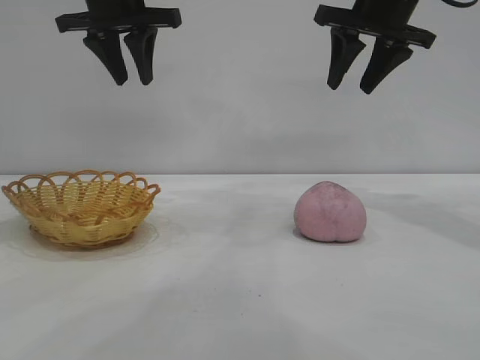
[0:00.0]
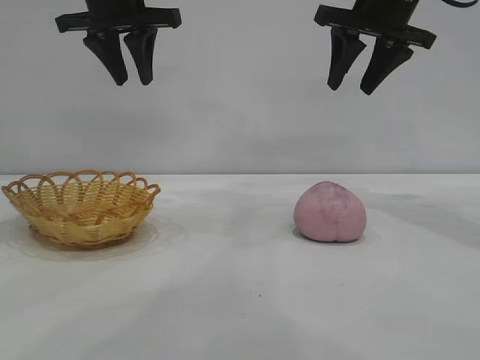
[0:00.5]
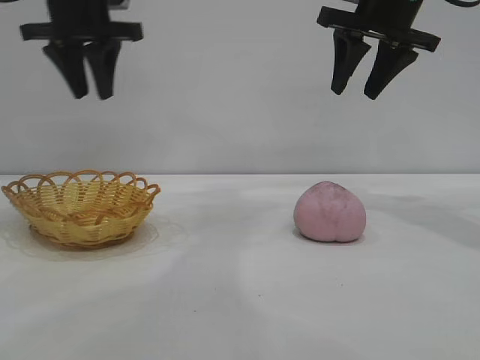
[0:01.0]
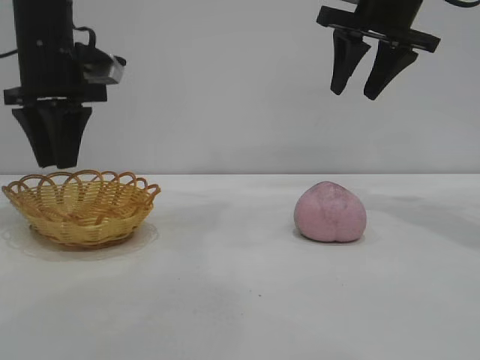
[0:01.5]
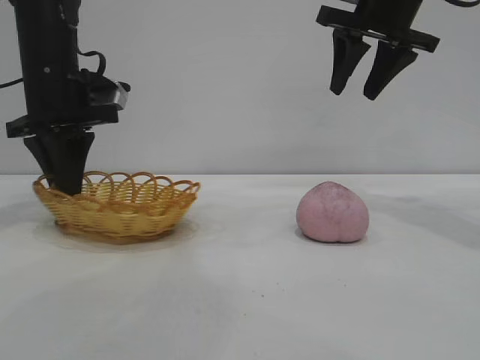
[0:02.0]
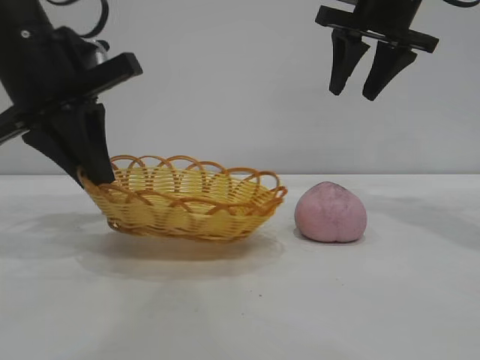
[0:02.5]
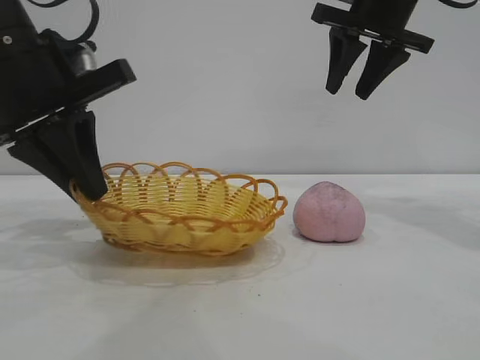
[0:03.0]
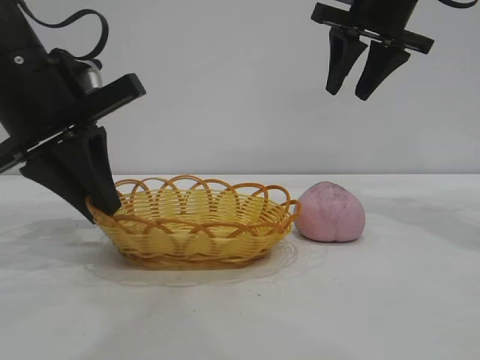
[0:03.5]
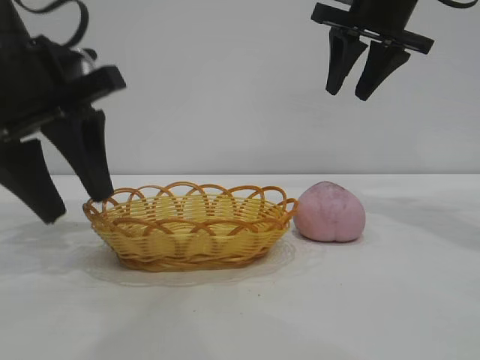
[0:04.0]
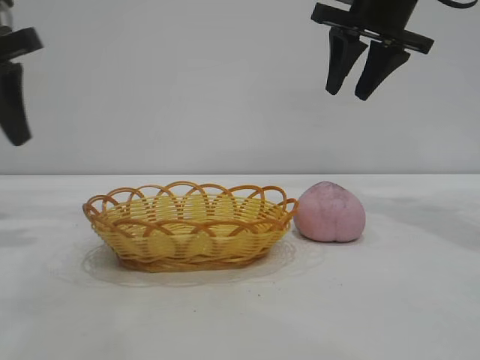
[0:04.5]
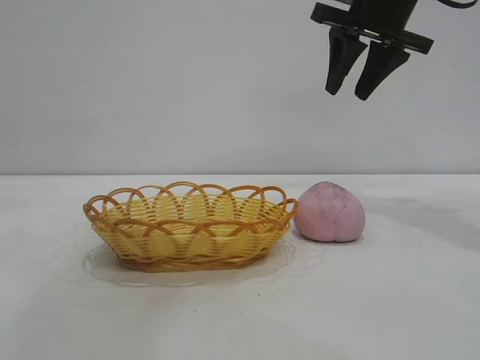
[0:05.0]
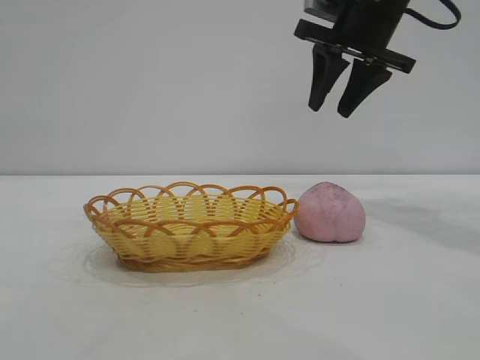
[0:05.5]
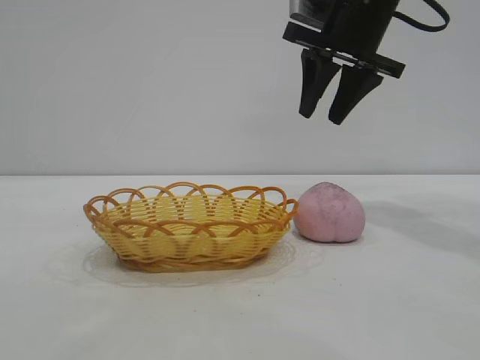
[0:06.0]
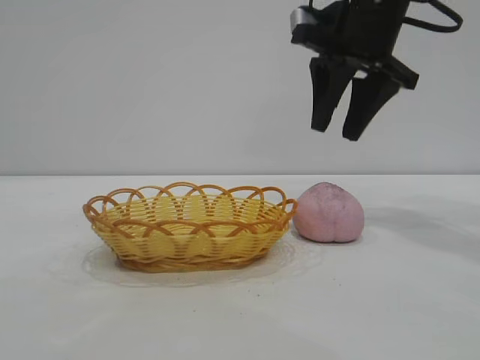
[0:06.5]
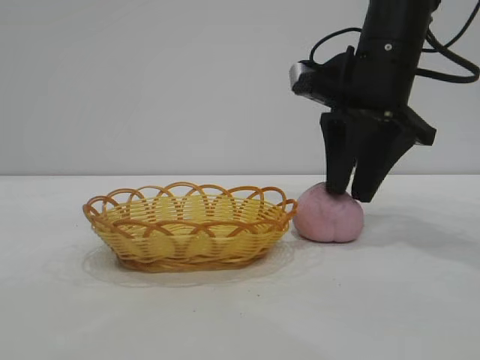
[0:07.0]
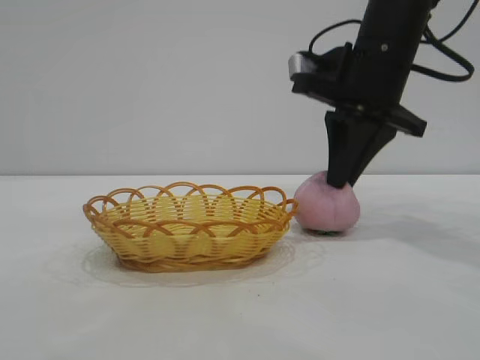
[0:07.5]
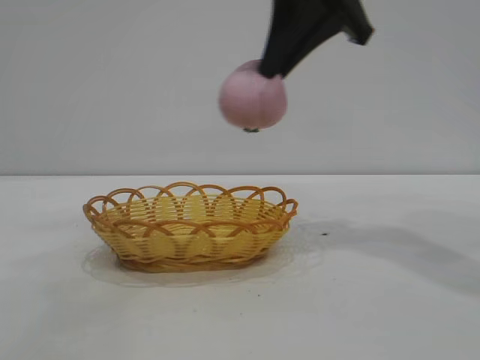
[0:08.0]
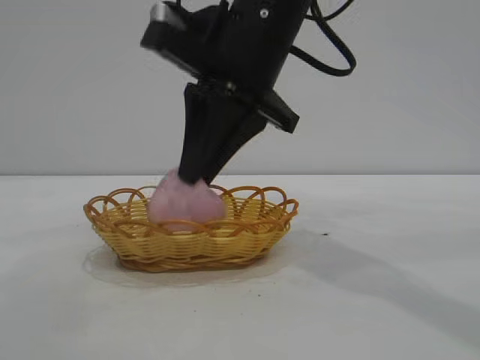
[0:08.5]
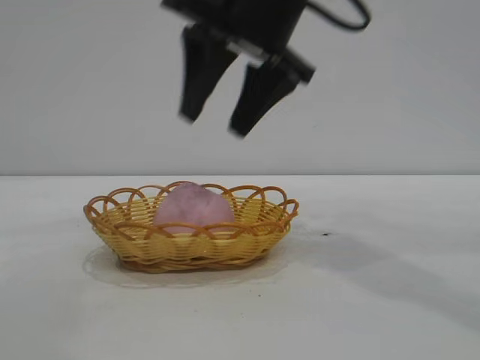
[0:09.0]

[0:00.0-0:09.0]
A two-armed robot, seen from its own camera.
Task of the whole recording: pick up the peach and put it into the basket.
Step, 0:00.0 to 0:04.0: Move the basket to the center of view.
Step, 0:04.5 to 0:07.5: Pick up the peach.
Step, 0:08.0 to 0:08.5: place the peach into the basket.
